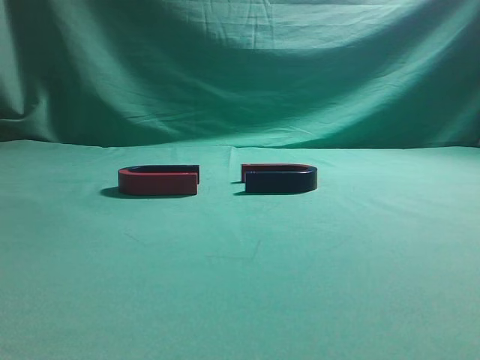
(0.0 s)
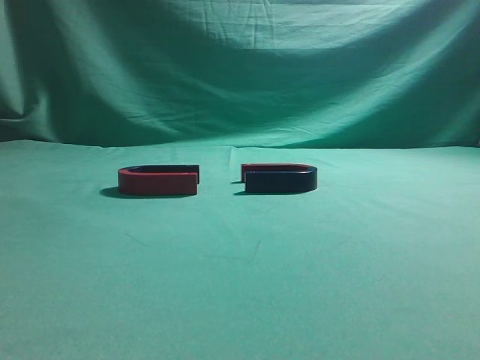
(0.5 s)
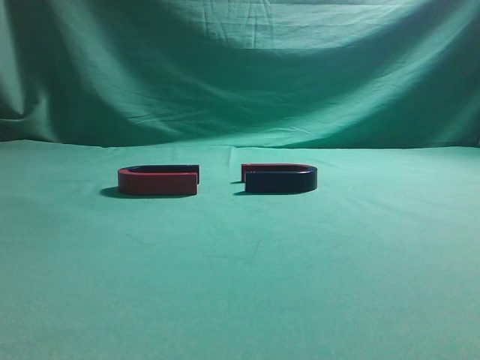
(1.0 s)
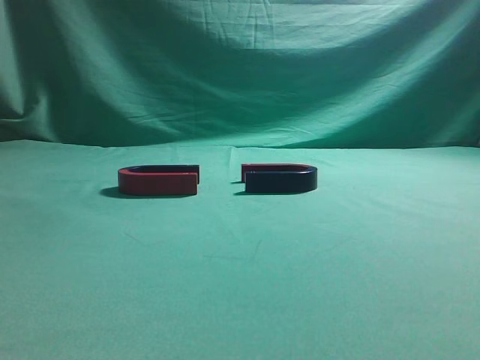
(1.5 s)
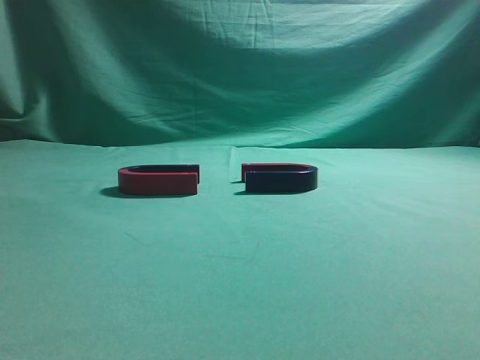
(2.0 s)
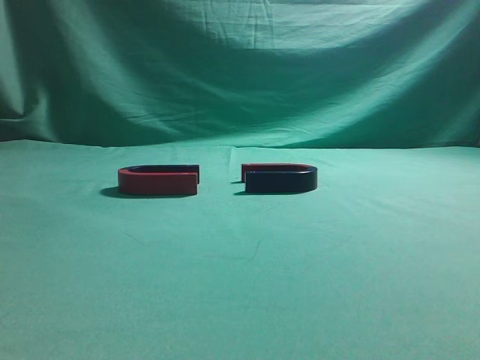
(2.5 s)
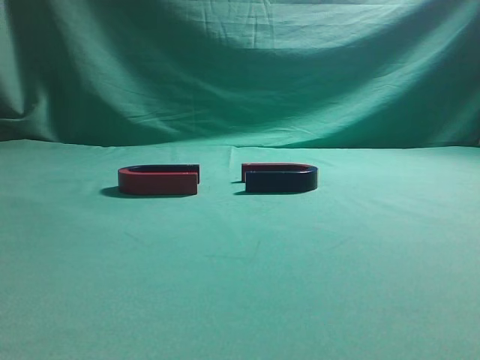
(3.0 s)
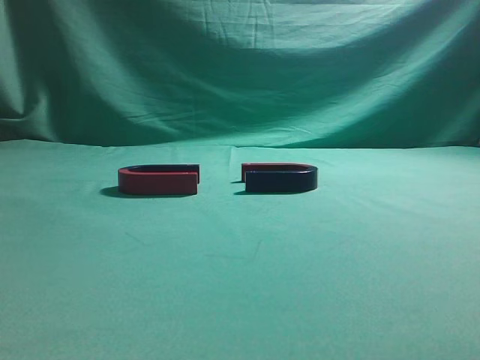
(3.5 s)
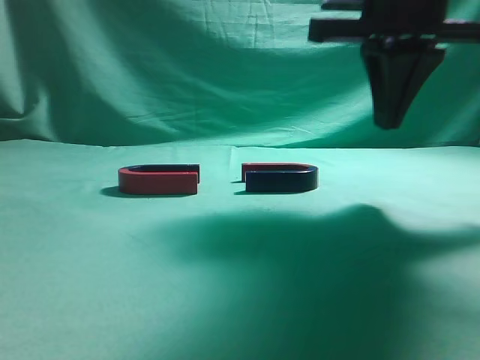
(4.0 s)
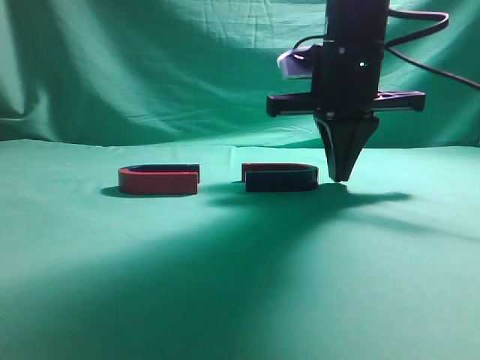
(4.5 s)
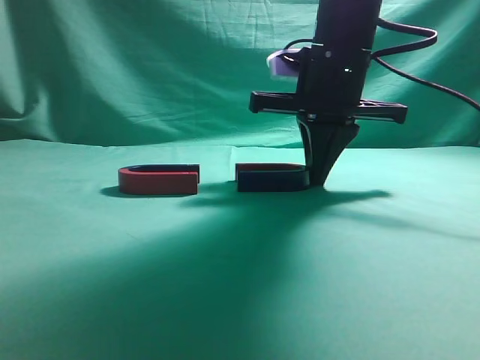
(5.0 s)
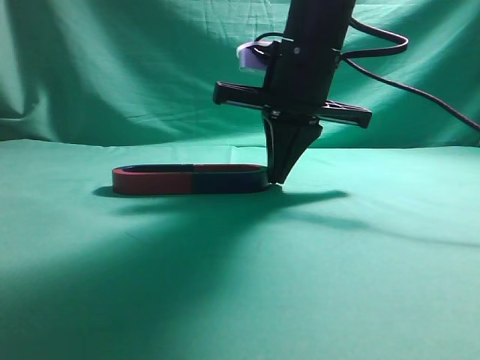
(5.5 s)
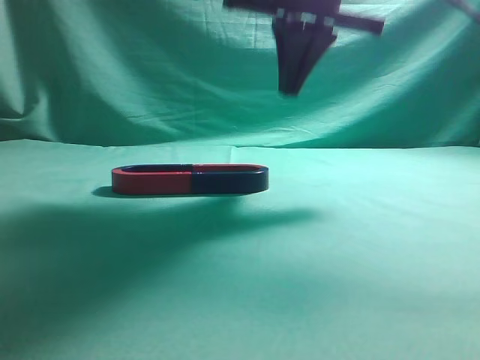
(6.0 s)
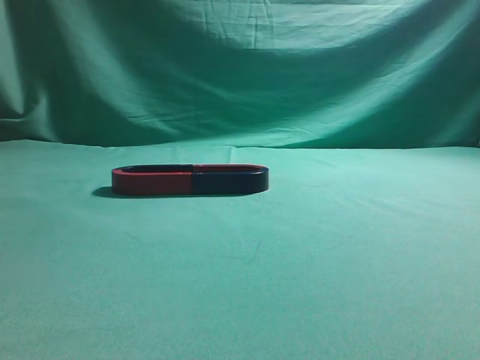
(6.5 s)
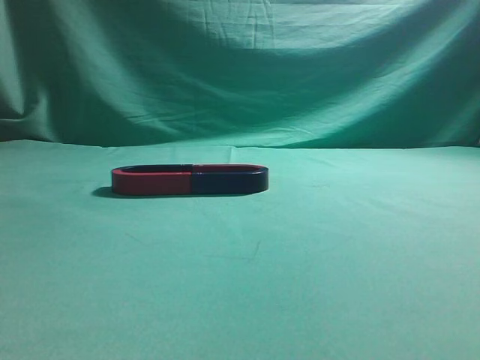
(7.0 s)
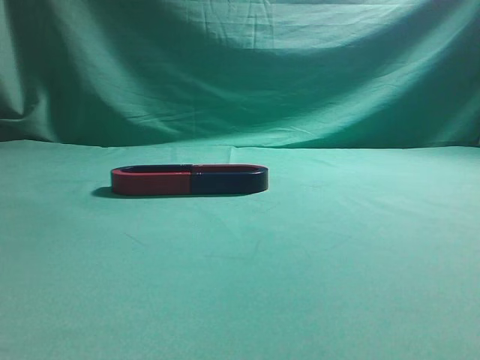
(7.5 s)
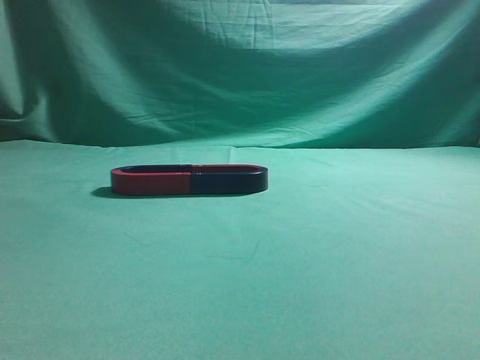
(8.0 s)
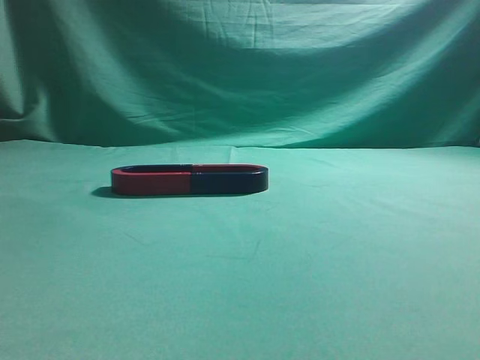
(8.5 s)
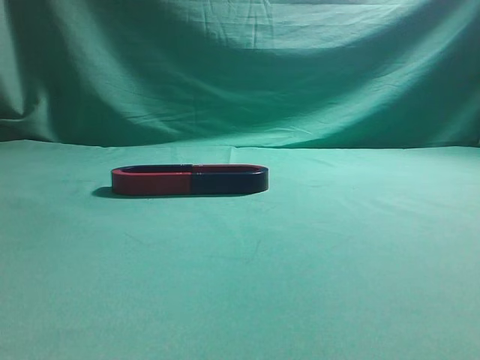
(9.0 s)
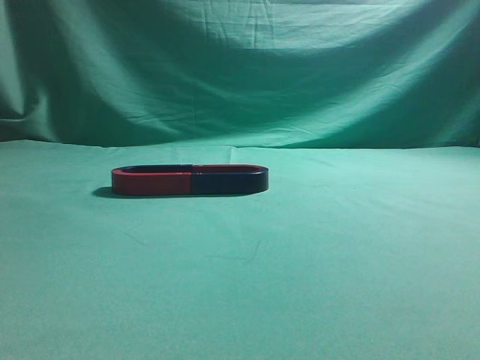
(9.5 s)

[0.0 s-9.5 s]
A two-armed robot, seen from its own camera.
Task of the whole recording: push the magnet on the table from its original position to another position.
Step, 0.0 to 5.5 s: Push the magnet on the right to connect the magnet on the left.
2.0 to 4.0 s: The right gripper moves forward and to the left, about 30 cm.
4.0 to 5.5 s: The right gripper travels to the left, downward and forward by some 10 cm.
5.5 to 7.5 s: The right gripper moves backward, to the right and upward, approximately 50 cm.
